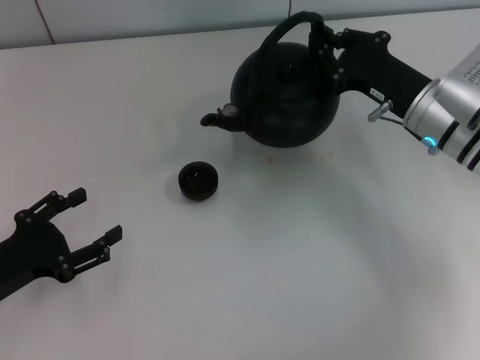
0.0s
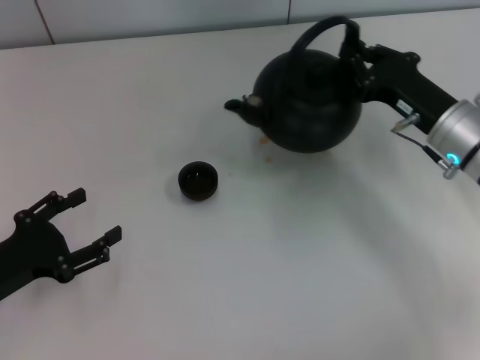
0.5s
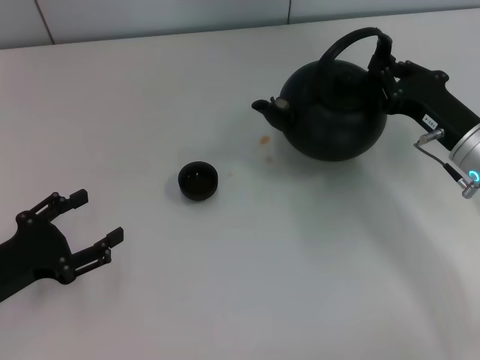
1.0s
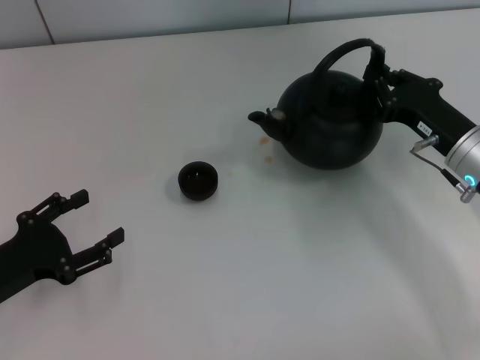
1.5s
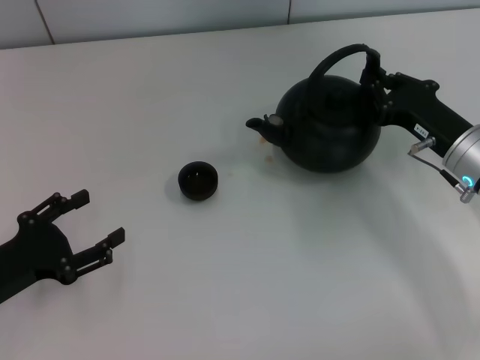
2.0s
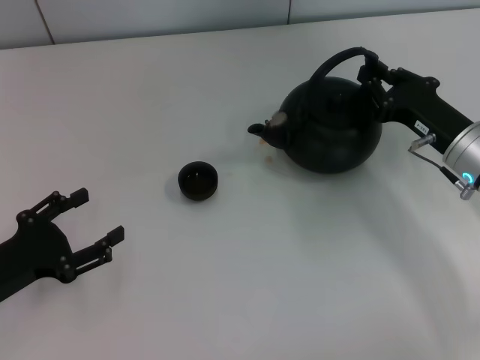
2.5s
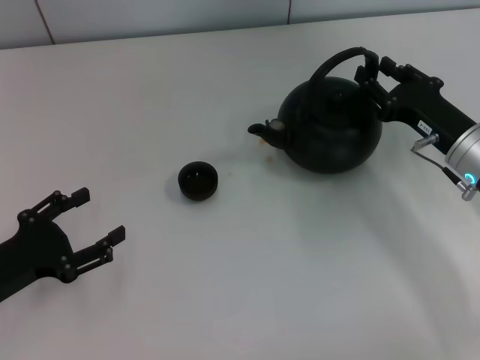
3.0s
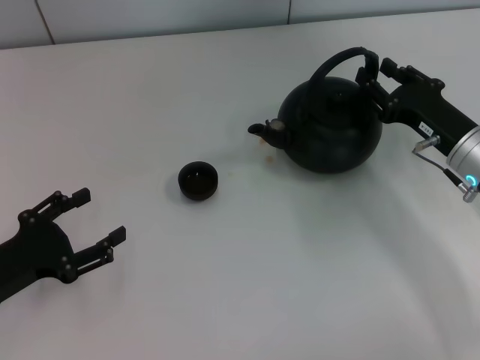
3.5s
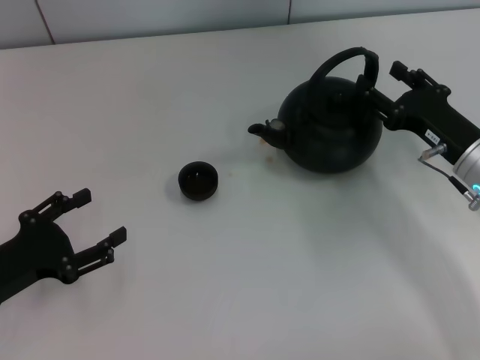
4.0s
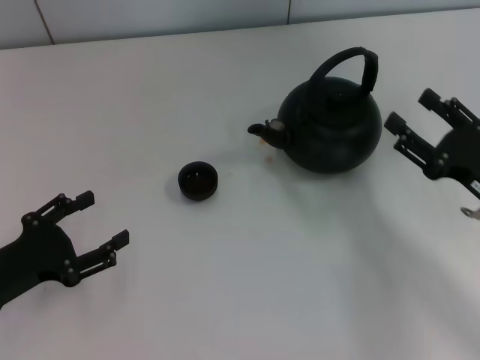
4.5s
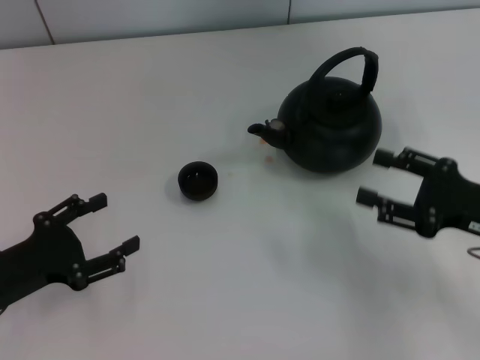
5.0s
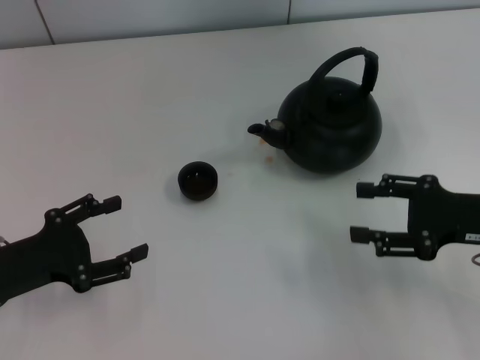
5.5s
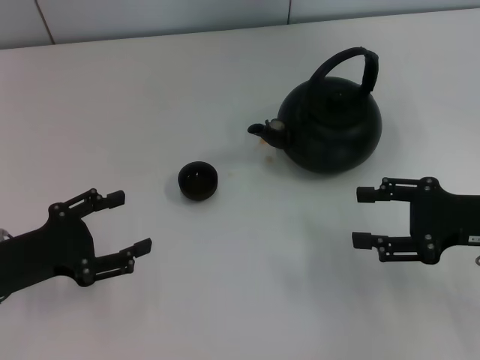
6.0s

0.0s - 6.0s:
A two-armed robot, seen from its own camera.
Task of the whole recording: Grasp the handle of the teapot with one hand and pour tea into the teacup.
Step, 0.5s - 4.0s: Put down the teapot with the right gripper.
0.0s - 2.0s: The right gripper moves approximately 5 cm.
2.0s - 4.0s: The right gripper opens.
4.0s - 6.0s: The right gripper moves backward, some 5 cm.
